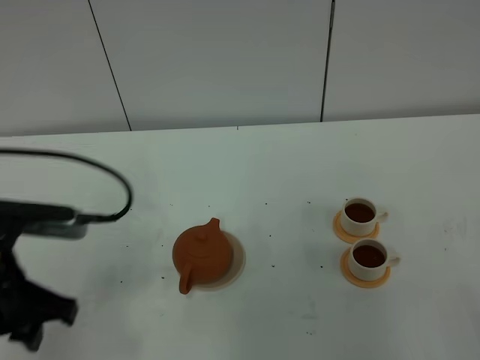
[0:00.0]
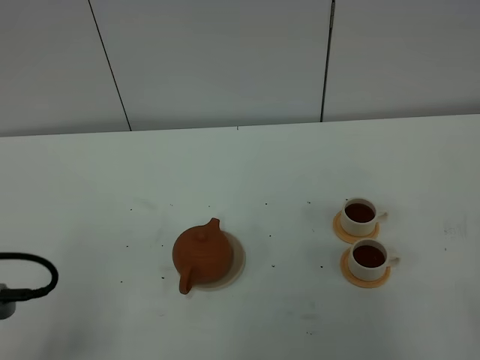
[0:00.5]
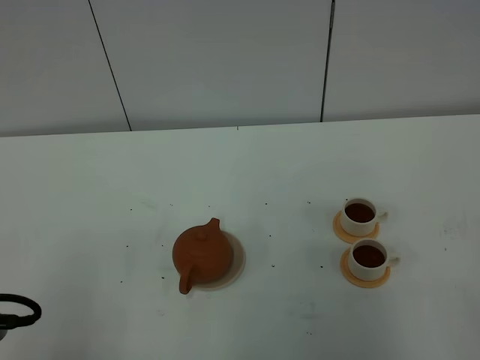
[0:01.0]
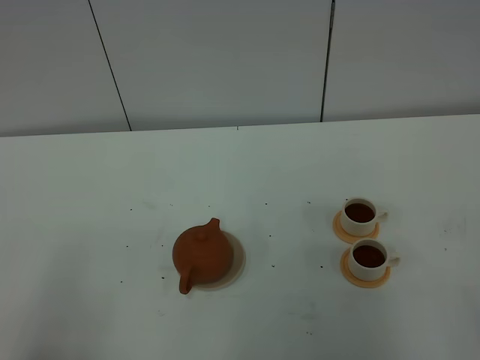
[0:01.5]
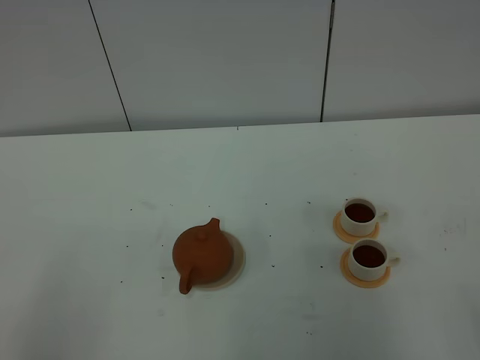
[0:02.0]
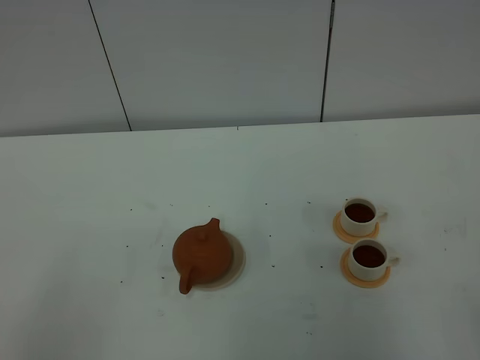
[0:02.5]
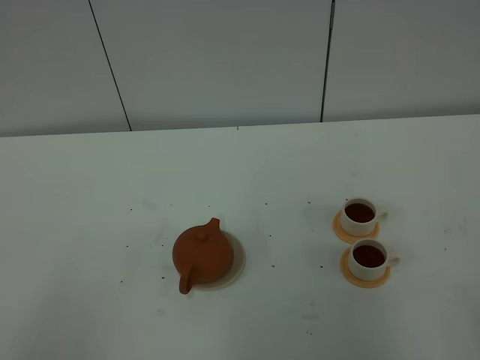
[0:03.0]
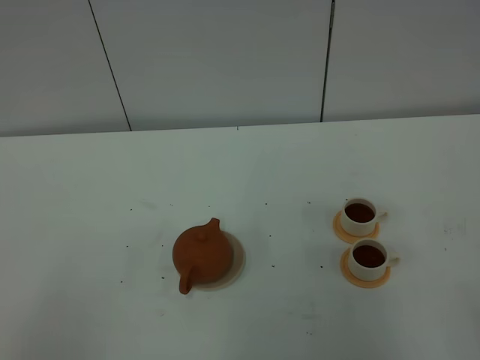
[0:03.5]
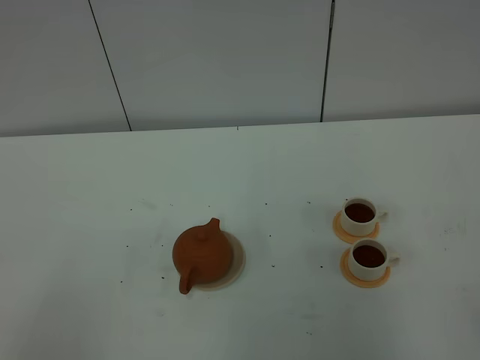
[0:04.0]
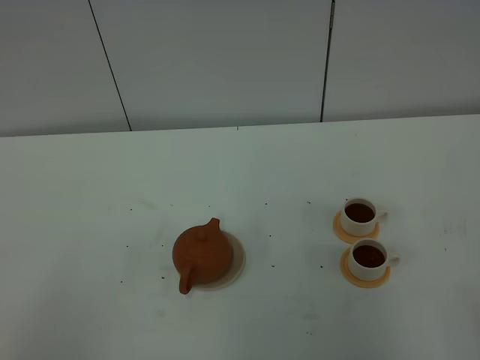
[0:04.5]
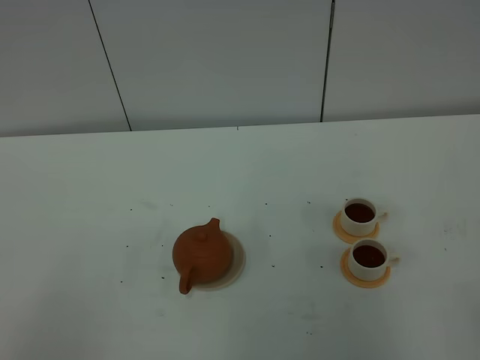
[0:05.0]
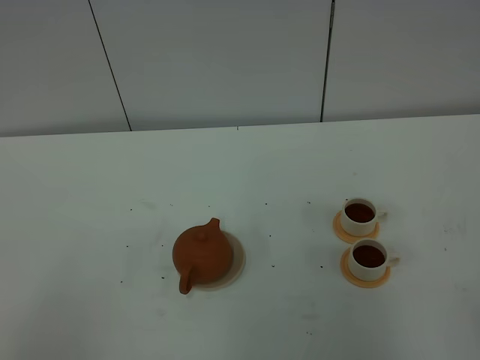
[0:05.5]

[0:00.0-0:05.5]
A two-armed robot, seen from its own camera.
Task of the whole recording: grasp the brown teapot and pour the tea into the two white teacups one by one, put the brown teapot back in its original place.
0:00.0 to 0:02.0: The left gripper is displaced backward by about 20 cm.
0:03.5 to 0:05.5: Both grippers stay about where they are.
